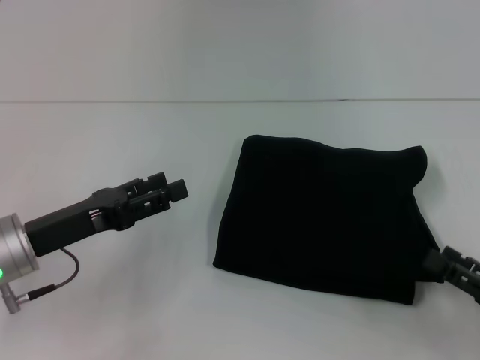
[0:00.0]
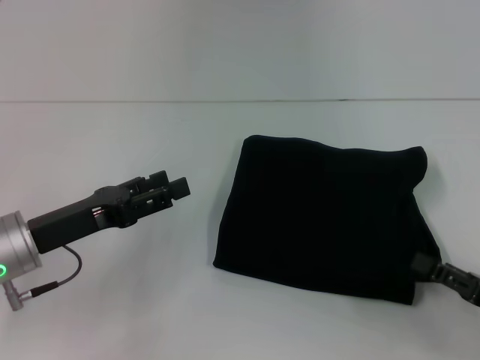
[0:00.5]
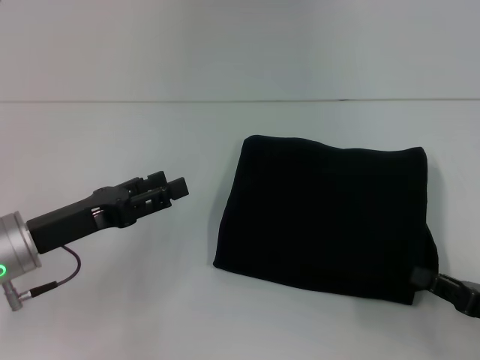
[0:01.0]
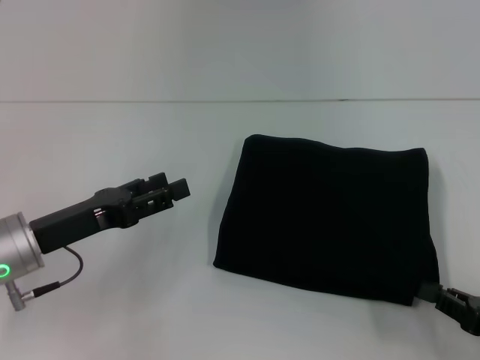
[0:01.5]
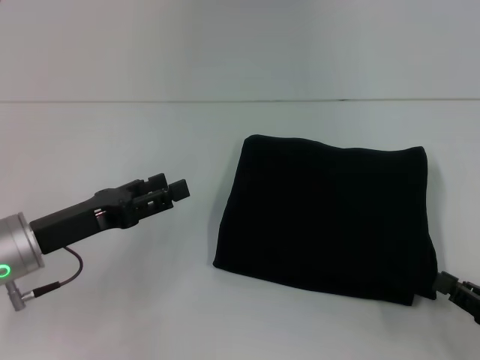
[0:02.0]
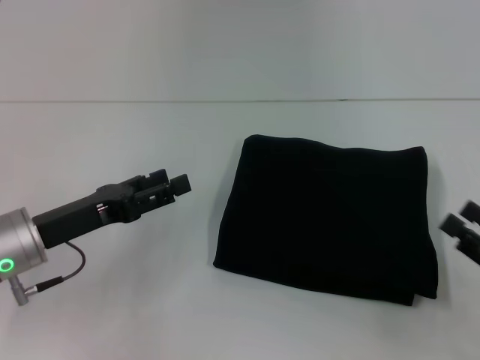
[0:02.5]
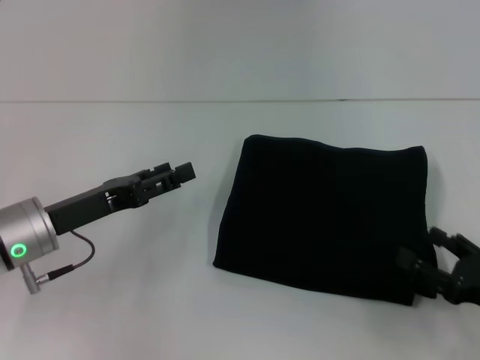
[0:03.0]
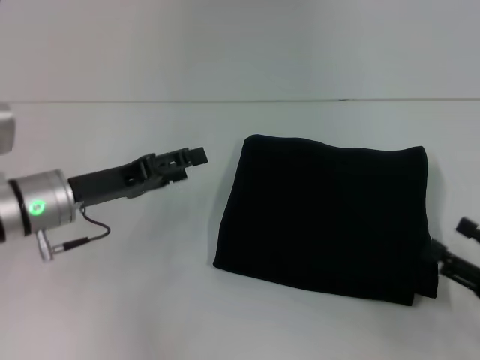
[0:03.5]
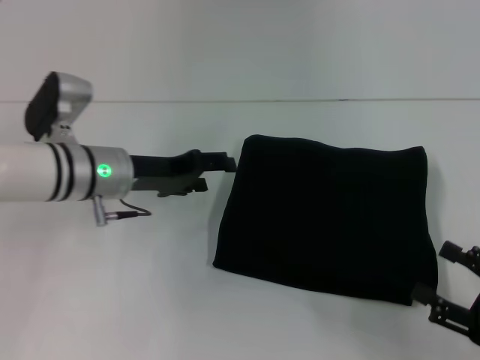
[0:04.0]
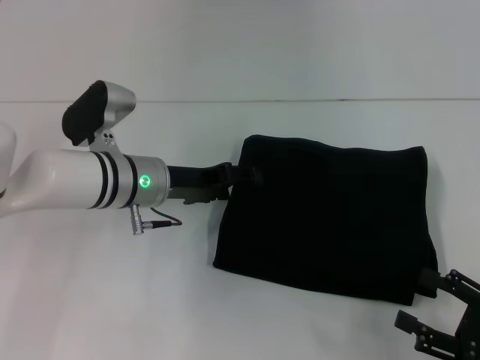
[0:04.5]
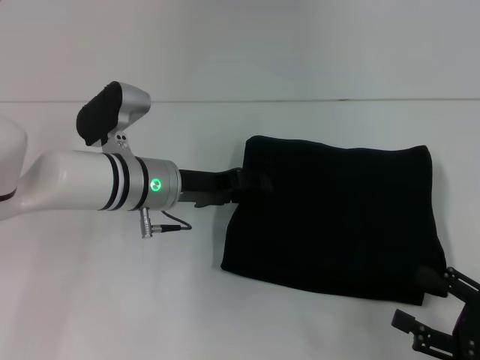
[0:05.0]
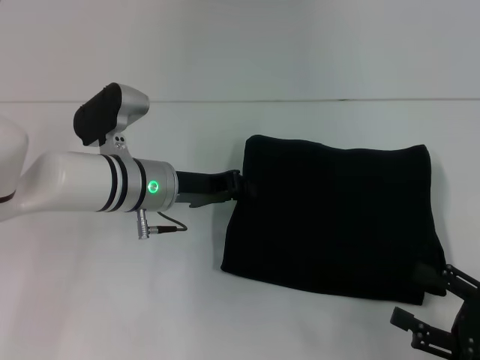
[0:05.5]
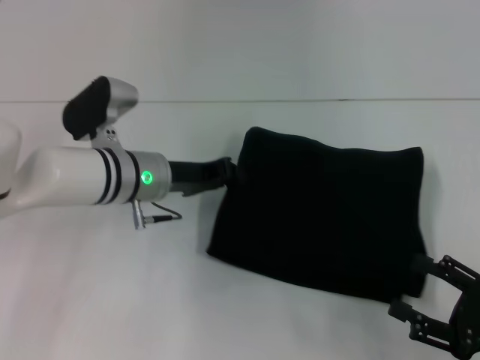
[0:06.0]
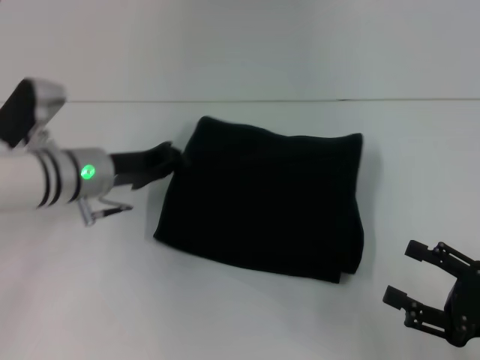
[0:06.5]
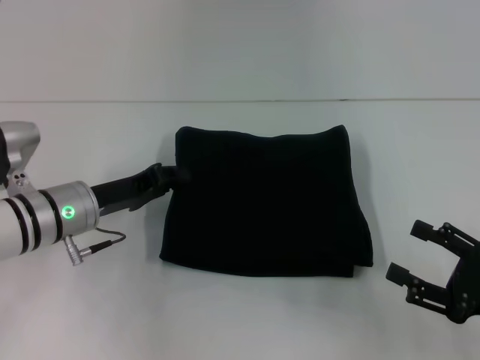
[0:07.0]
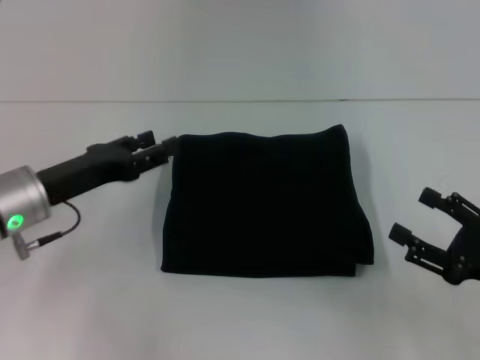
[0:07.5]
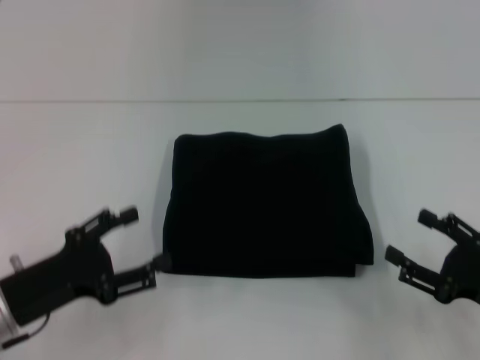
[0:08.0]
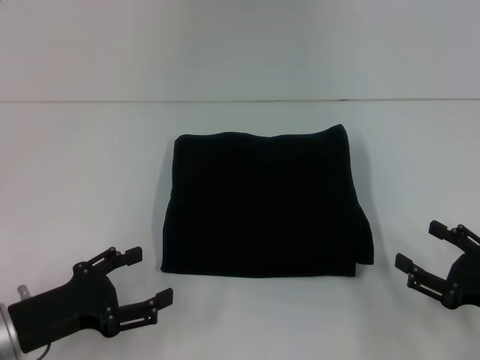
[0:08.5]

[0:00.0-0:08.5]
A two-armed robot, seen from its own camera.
0:00.0 to 0:02.0: The right gripper closes its fingers.
0:02.0 to 0:04.0: The left gripper travels forward and to the right by roughly 10 cm. The right gripper opens.
0:04.0 to 0:06.5: The left gripper closes up.
0:06.5 to 0:08.5: The left gripper is displaced backward by approximately 15 cm, and opens up.

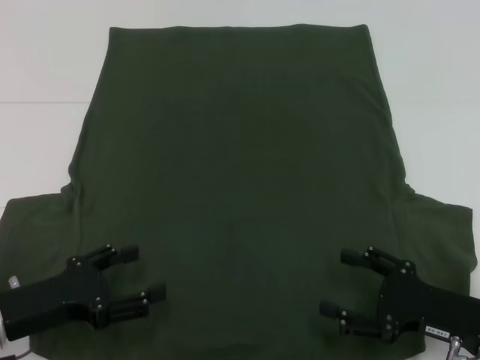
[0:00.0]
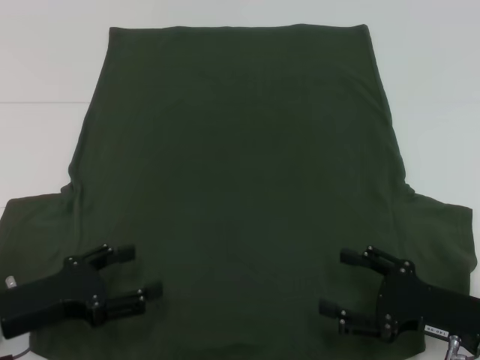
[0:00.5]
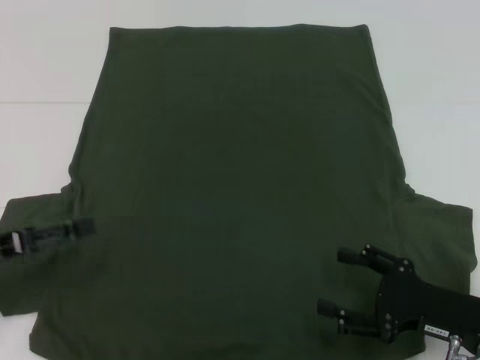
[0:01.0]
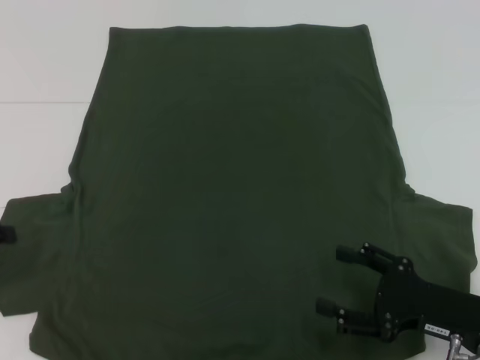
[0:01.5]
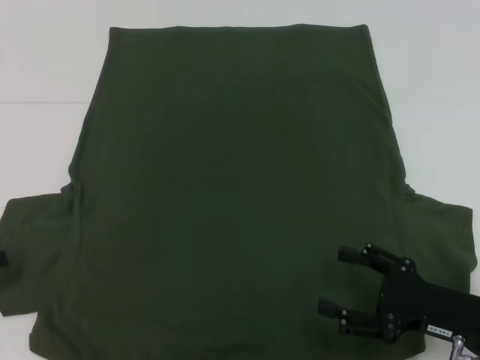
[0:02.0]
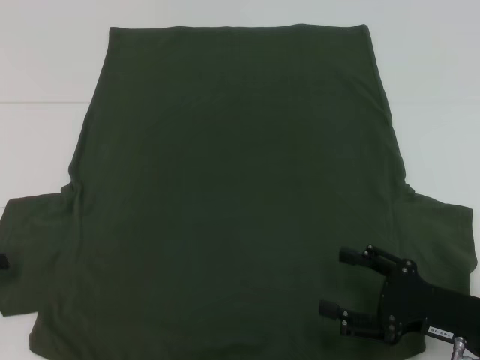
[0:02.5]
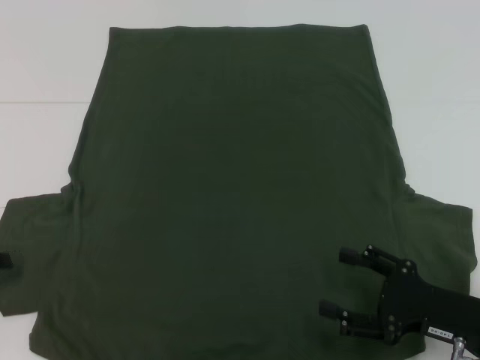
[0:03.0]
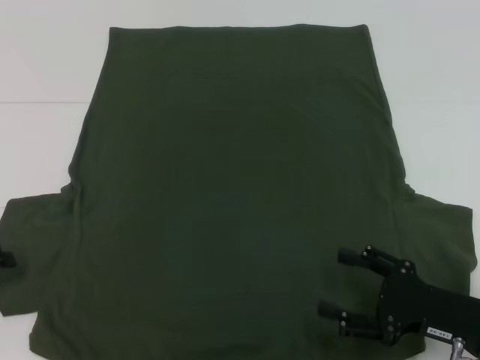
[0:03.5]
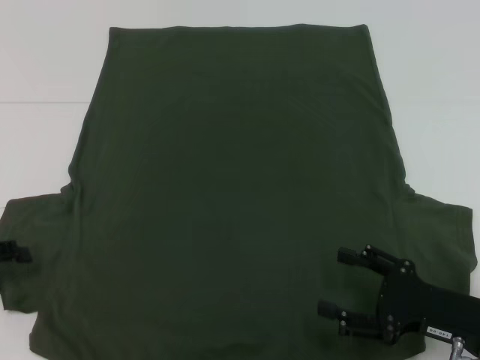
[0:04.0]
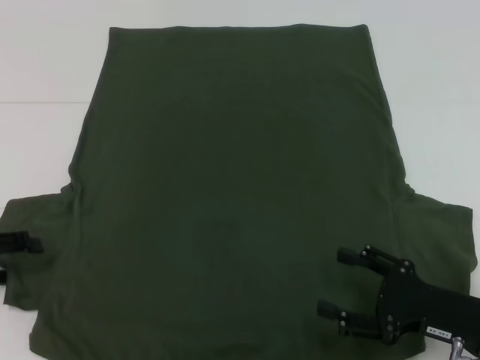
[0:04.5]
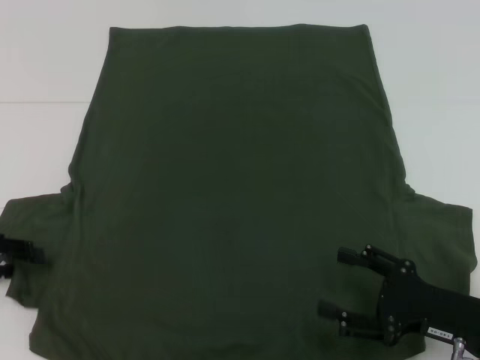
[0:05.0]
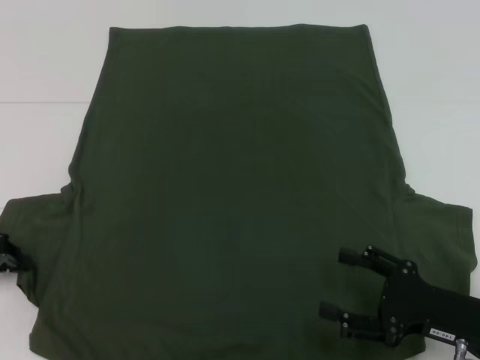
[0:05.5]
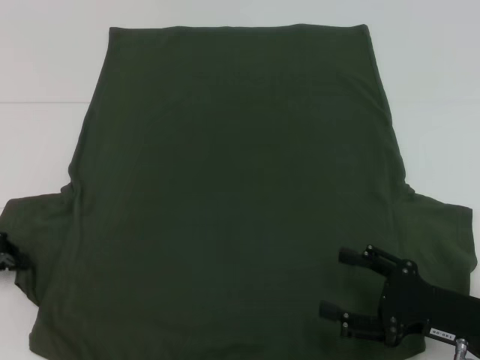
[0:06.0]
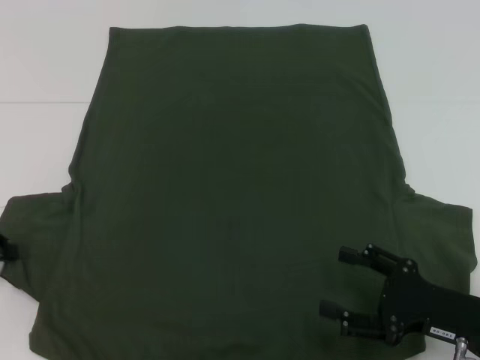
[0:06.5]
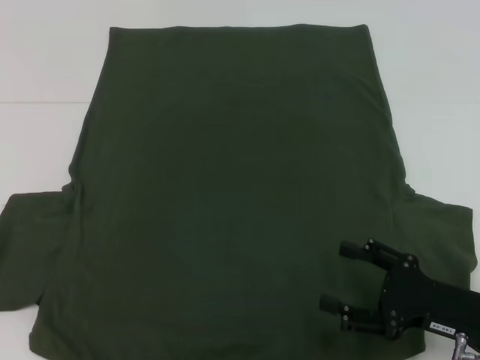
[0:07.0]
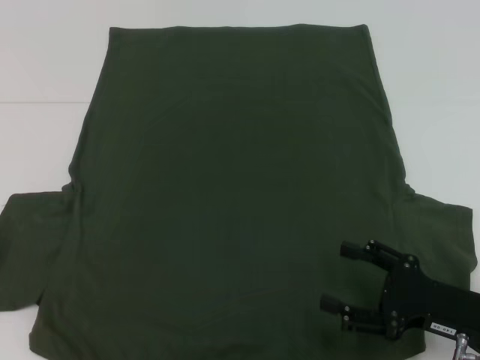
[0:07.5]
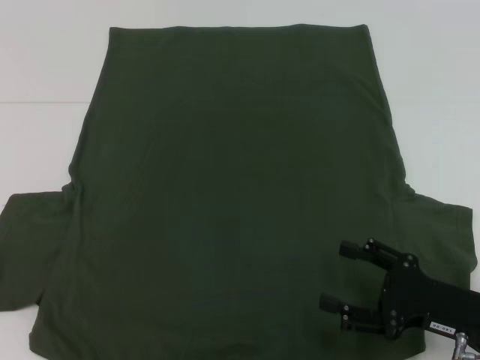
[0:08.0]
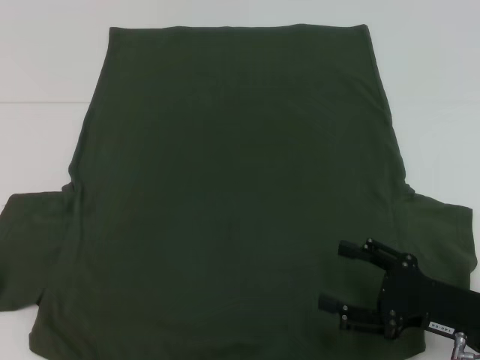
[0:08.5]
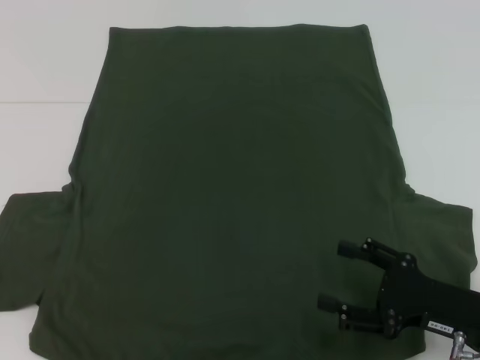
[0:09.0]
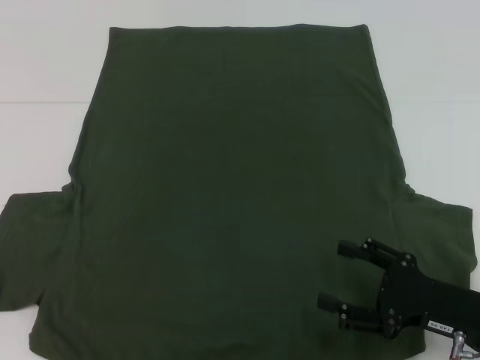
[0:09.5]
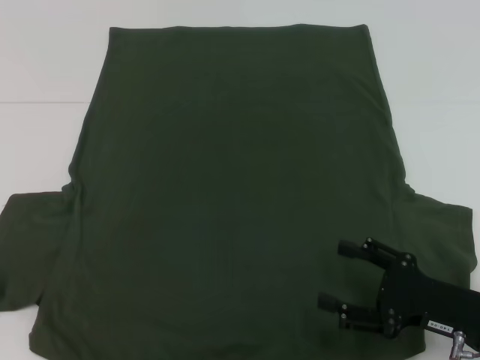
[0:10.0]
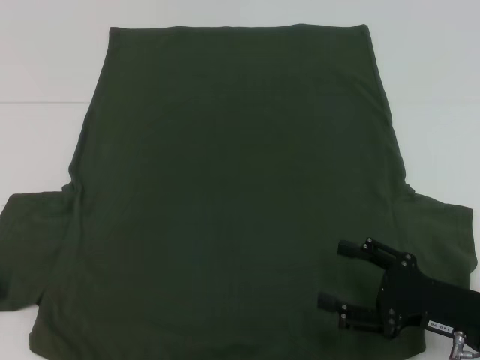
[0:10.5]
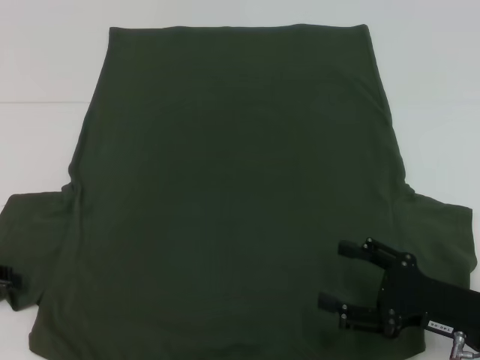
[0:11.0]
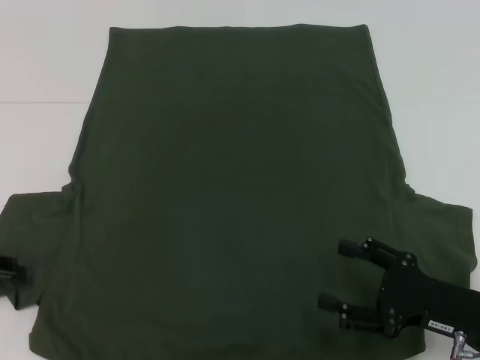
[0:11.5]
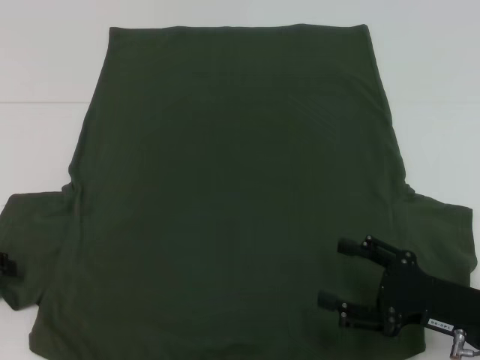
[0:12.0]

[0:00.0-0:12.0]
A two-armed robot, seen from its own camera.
0:00.0 to 0:02.0: The left gripper travels to the left and upward by about 15 cm.
0:04.0 to 0:06.0: The left gripper closes up.
0:06.0 to 0:08.0: The left gripper ends up roughly 5 cm from where it was.

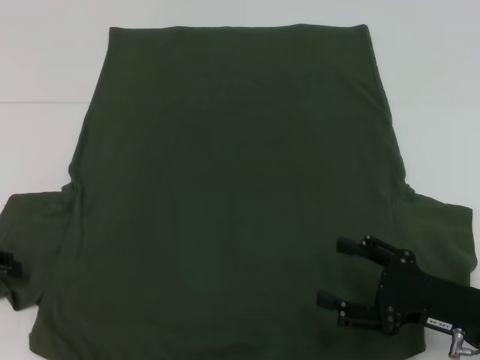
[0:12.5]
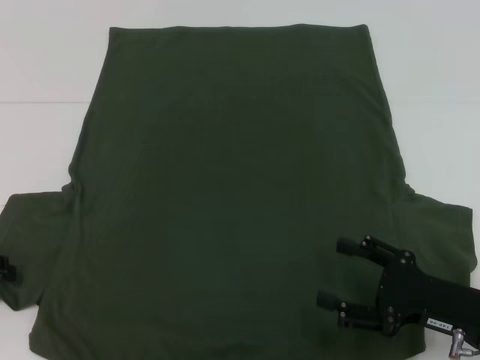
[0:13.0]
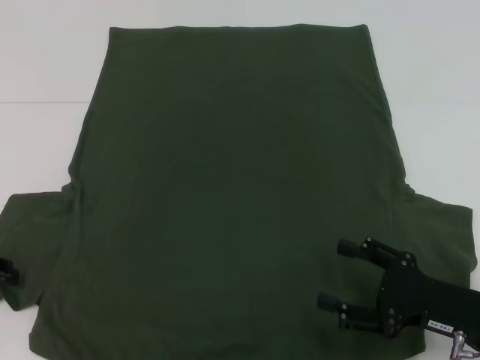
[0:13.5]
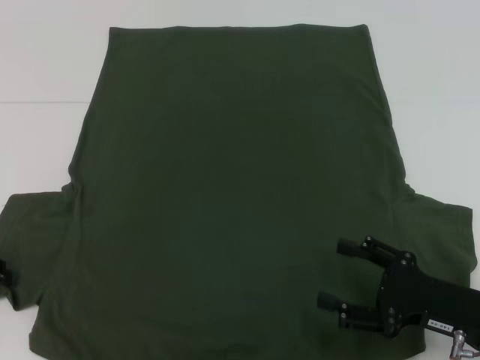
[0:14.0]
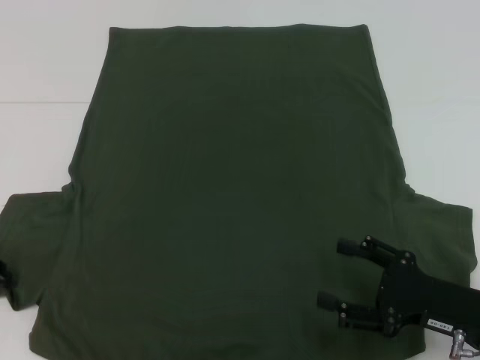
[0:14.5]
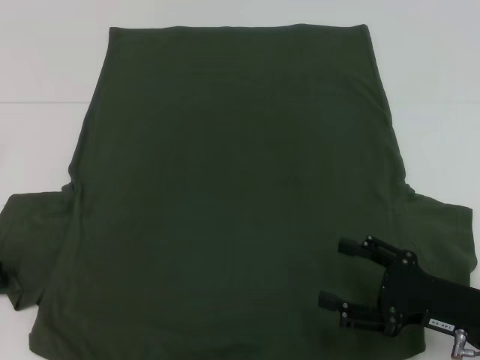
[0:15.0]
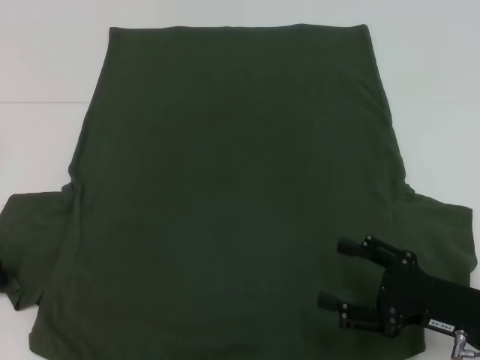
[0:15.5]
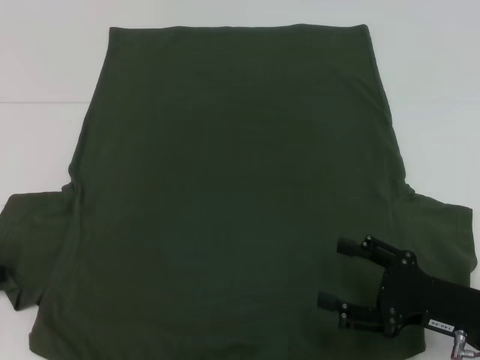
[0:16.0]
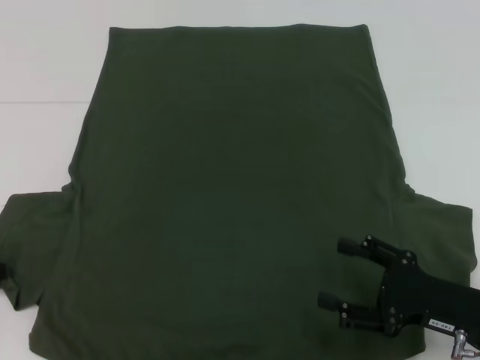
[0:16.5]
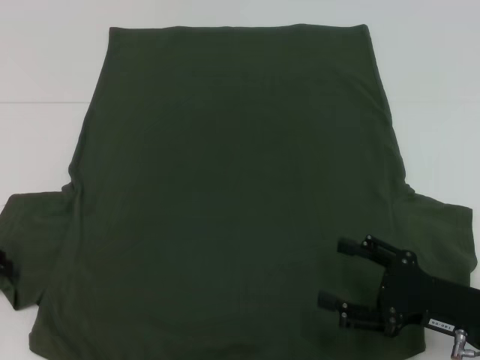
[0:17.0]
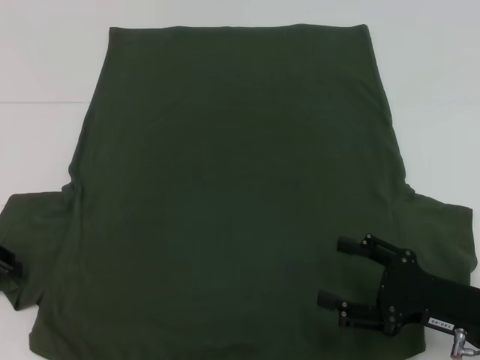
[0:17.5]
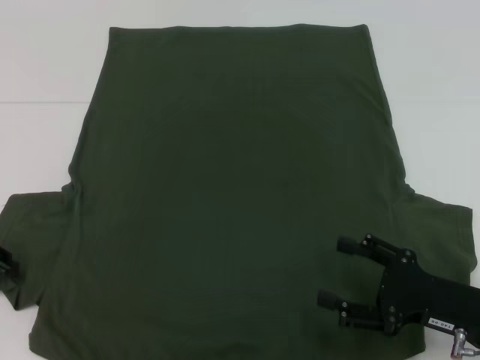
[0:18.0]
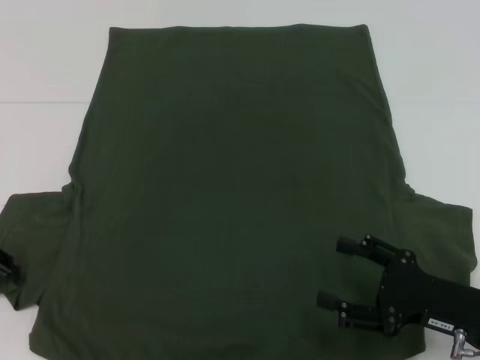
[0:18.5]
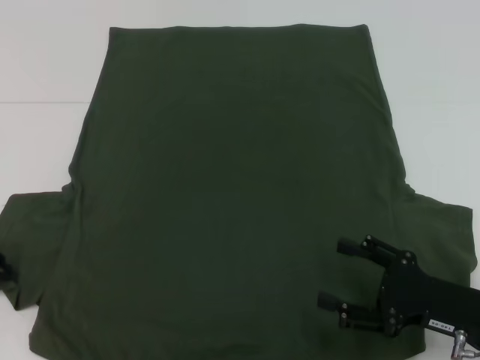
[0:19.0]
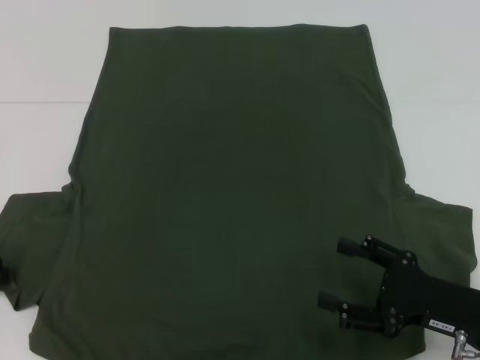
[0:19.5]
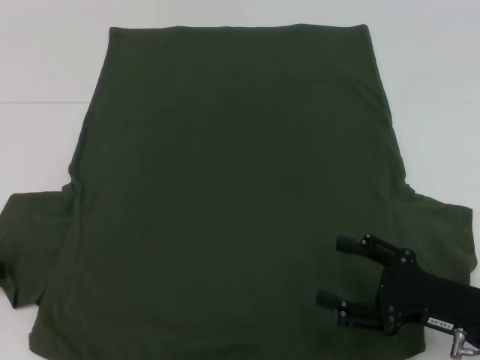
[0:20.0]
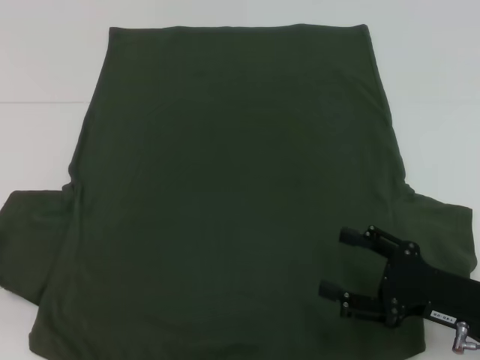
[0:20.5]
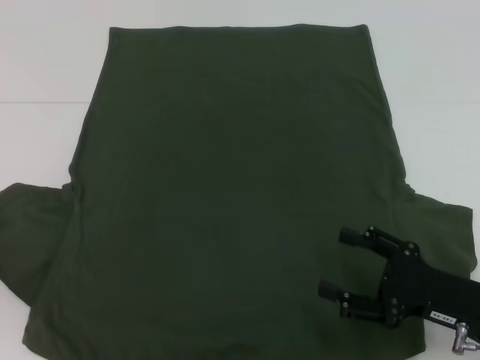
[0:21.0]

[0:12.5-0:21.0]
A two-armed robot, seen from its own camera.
0:16.5 to 0:19.0: The two grippers keep their place.
0:19.0 to 0:21.0: The left gripper moves upward, approximately 5 cm.
